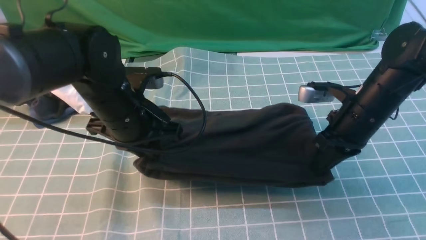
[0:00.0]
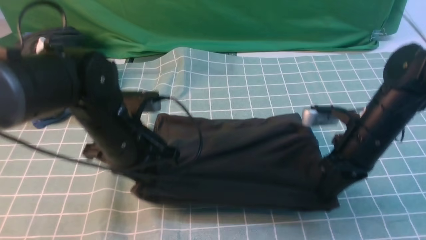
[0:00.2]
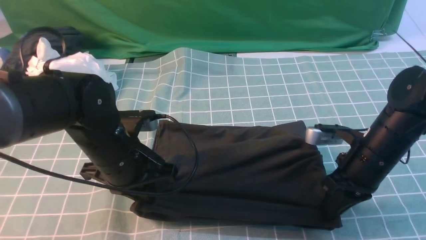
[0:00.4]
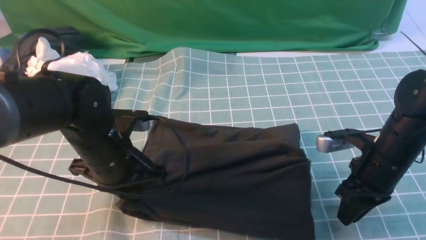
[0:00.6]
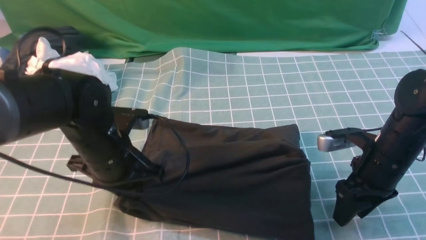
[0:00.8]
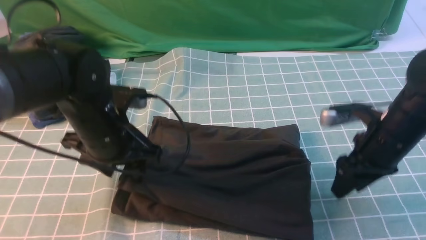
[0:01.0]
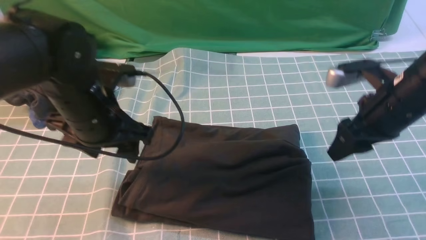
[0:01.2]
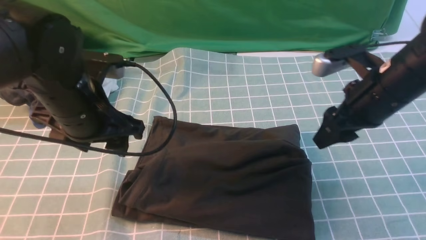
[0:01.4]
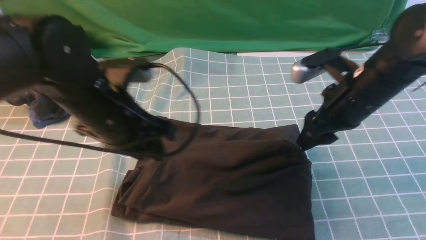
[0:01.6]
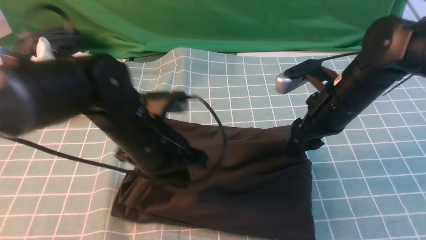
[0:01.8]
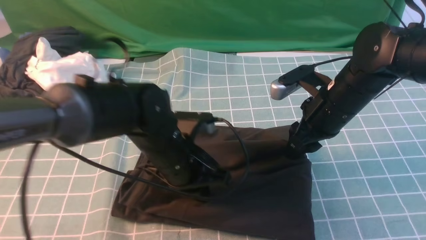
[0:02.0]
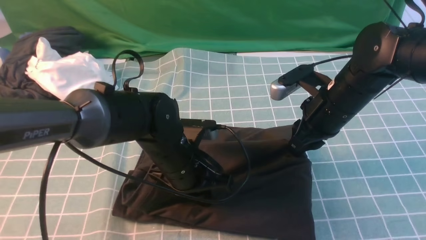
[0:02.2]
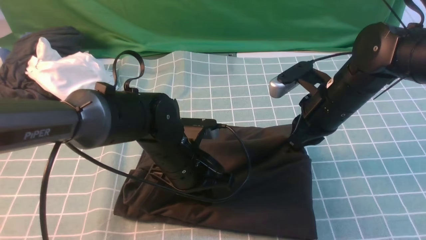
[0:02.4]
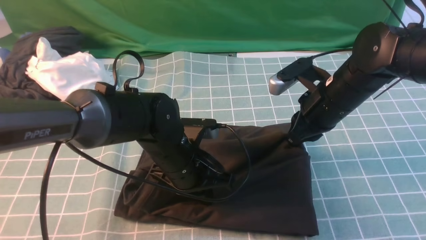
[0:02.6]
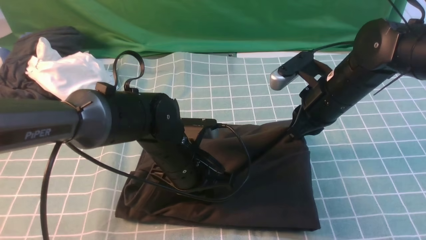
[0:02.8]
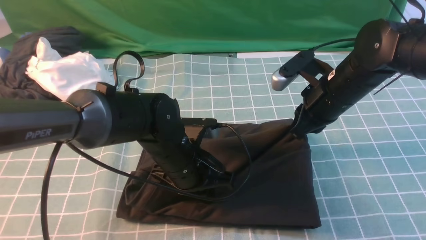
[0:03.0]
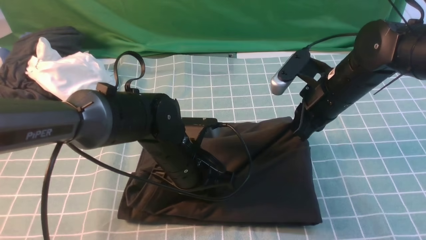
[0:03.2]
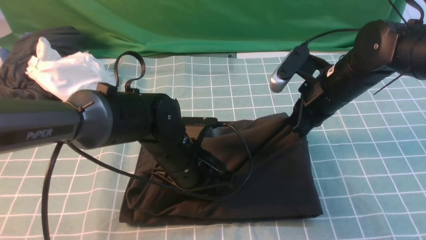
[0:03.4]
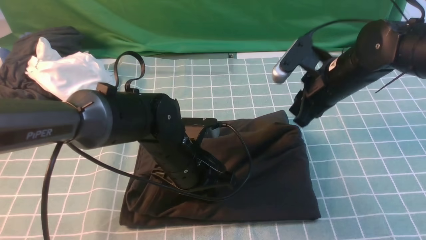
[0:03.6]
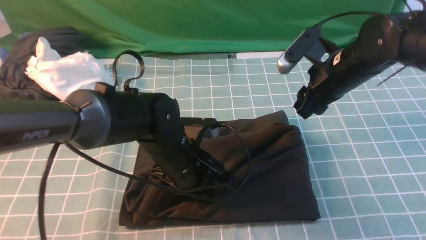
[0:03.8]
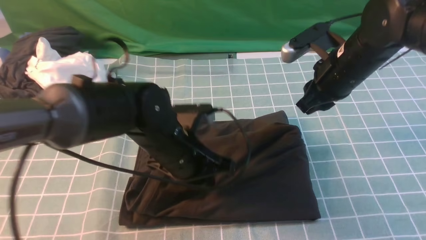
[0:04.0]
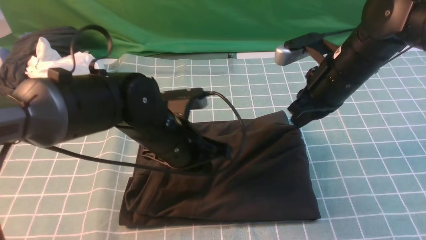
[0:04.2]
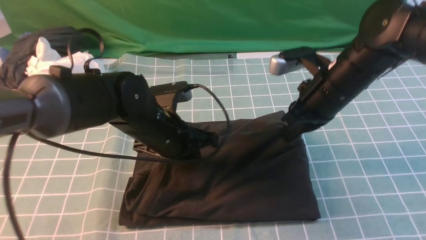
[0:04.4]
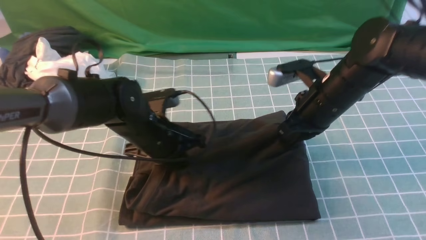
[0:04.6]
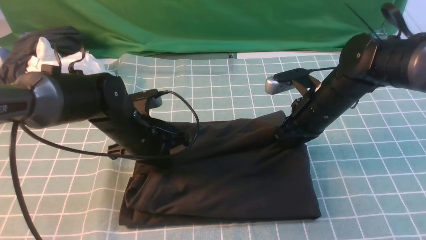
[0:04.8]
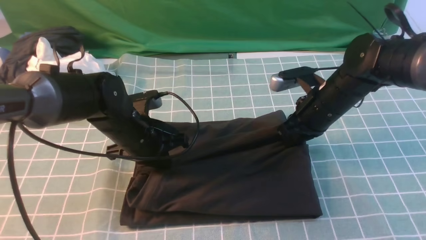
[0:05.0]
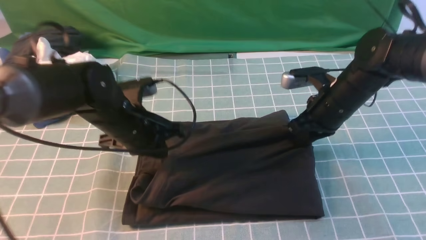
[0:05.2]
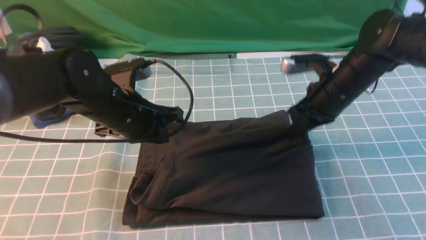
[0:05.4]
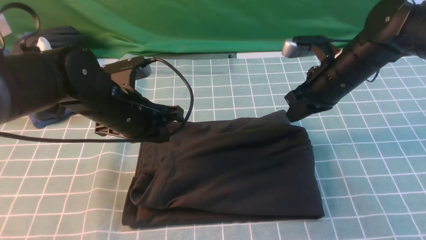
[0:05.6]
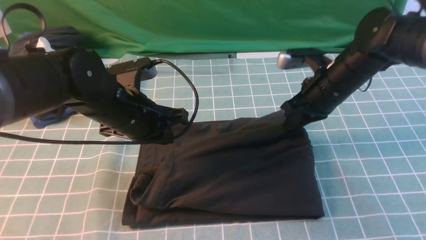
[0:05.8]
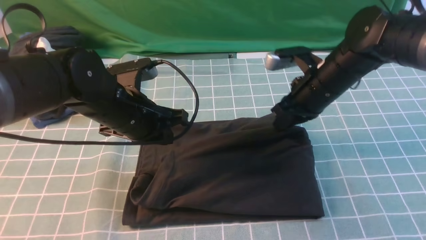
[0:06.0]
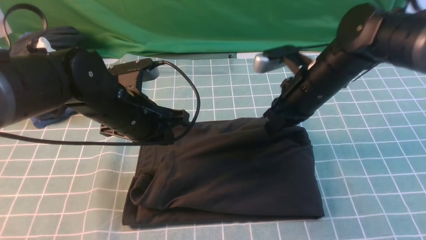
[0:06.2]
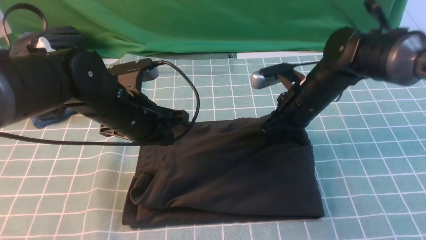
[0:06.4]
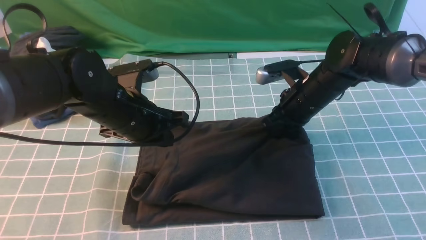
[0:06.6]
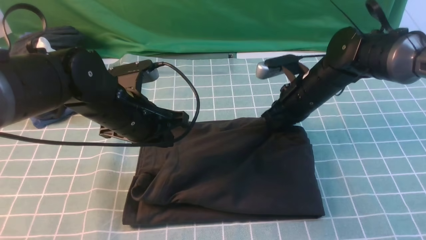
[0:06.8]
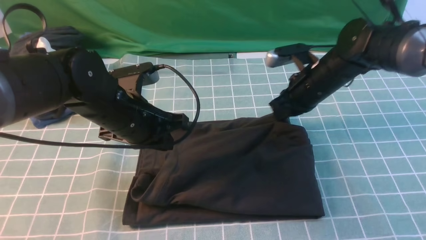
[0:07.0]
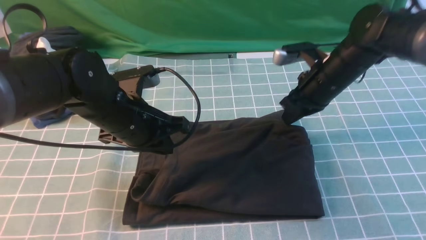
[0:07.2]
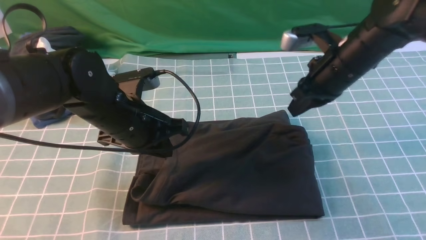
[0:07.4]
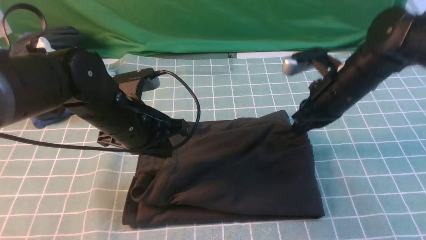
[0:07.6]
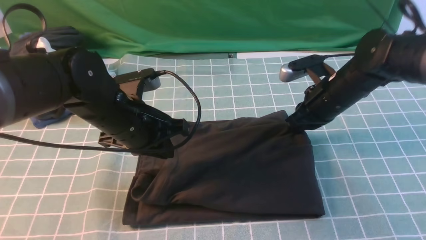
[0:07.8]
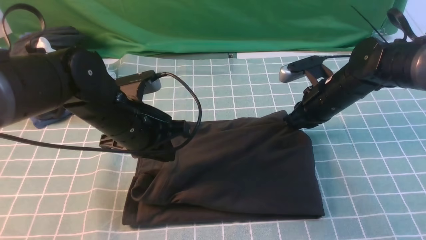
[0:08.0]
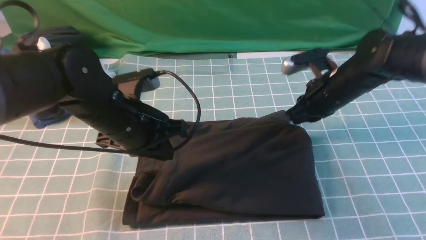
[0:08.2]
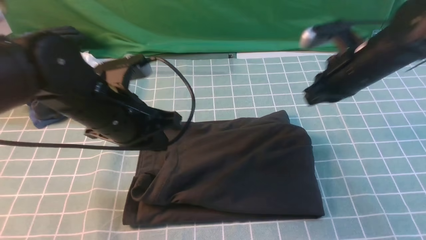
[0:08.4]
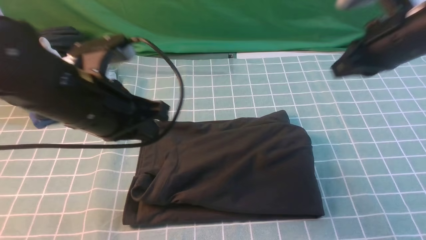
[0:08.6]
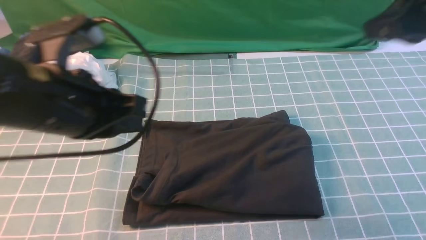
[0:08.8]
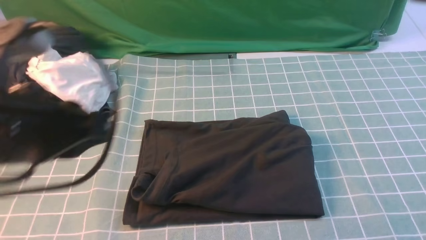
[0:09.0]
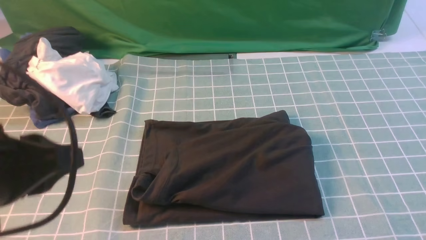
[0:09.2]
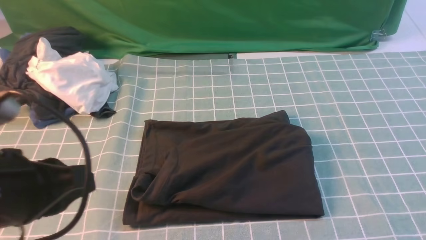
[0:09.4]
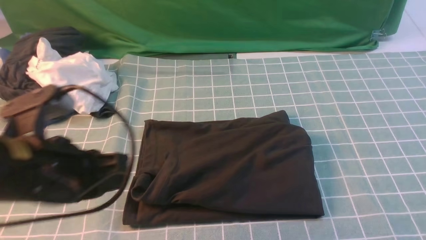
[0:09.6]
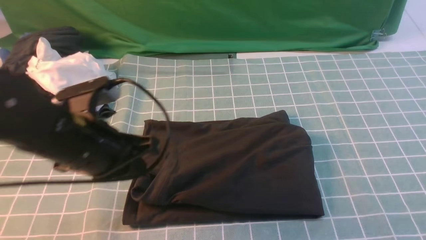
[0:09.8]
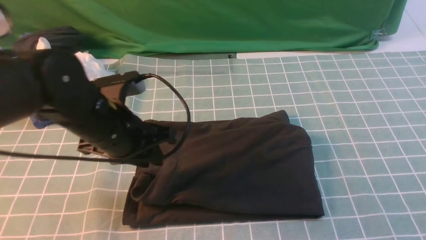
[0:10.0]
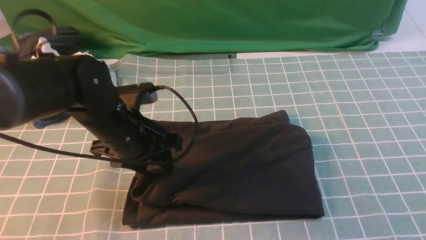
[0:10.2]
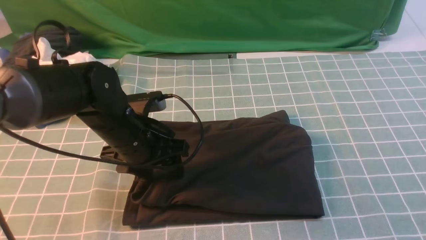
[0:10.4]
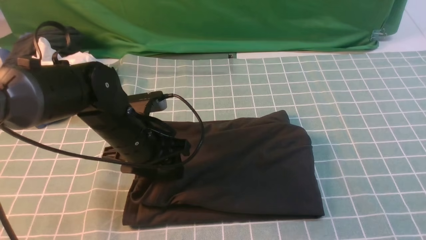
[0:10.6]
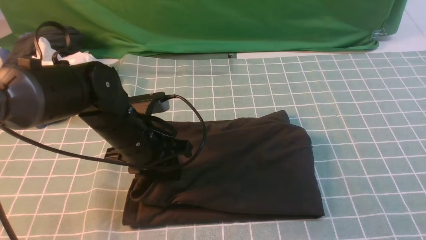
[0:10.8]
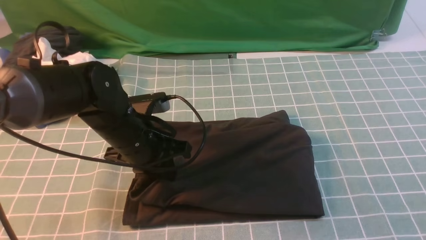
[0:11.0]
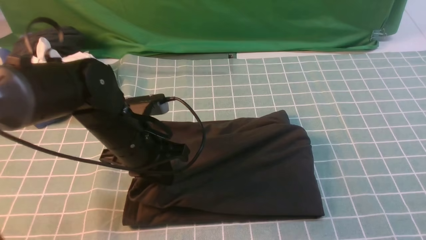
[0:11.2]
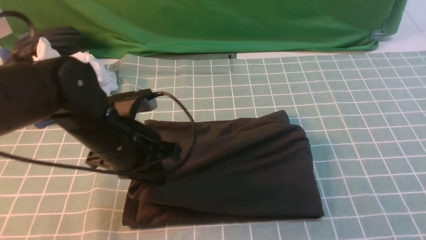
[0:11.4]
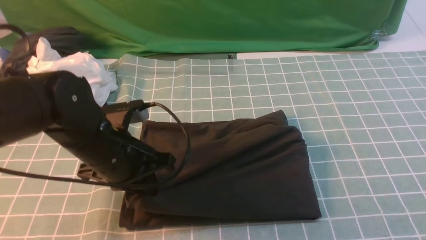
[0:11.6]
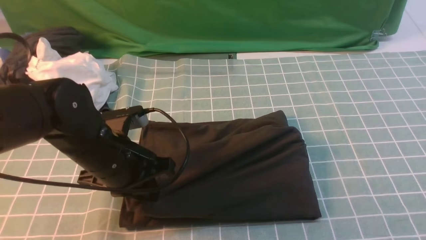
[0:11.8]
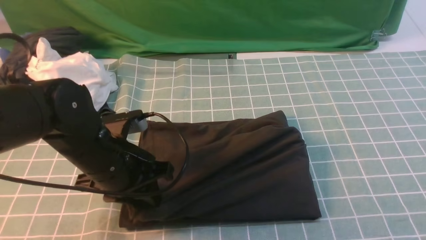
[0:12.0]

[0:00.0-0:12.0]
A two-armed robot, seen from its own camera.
0:00.0 to 0:01.6: The right gripper goes about 5 cm upward, and opens; the left gripper opens, then closes again.
0:01.6 to 0:03.0: The left gripper heads downward and to the right, covering some 10 cm, and closes its fingers. The right gripper closes its fingers.
0:03.0 to 0:04.4: The left gripper moves approximately 5 cm, while the right gripper opens and closes again.
0:04.4 to 0:06.0: The left gripper shifts by roughly 5 cm.
0:06.0 to 0:07.6: There are only small adjustments of the grippers.
0:07.6 to 0:09.0: The left gripper shifts some 20 cm backward and upward. Meanwhile the right gripper travels upward and backward by about 30 cm.
0:09.0 to 0:10.4: The right gripper travels backward by about 10 cm. Meanwhile the left gripper is displaced downward and forward by approximately 20 cm, and opens up.
0:10.4 to 0:12.0: The left gripper travels backward by about 5 cm, and closes up.

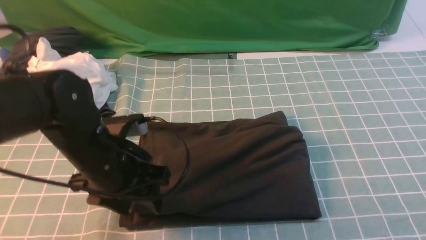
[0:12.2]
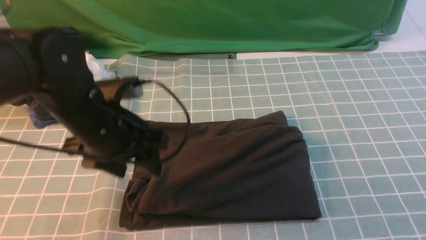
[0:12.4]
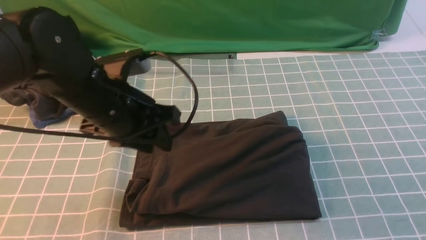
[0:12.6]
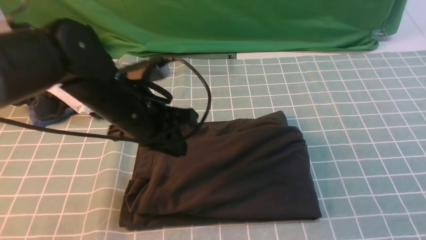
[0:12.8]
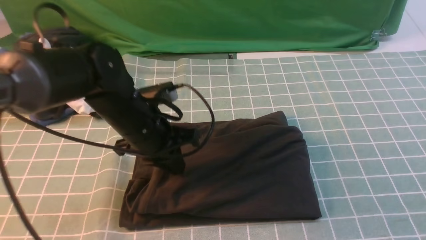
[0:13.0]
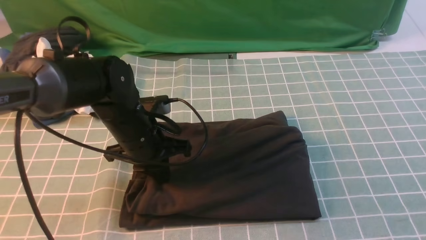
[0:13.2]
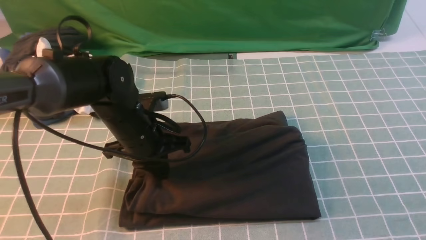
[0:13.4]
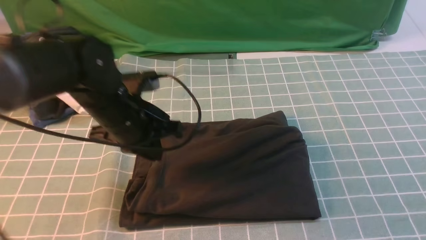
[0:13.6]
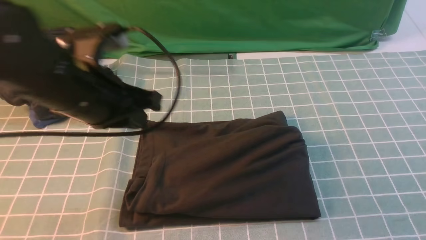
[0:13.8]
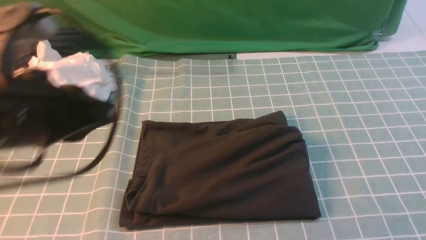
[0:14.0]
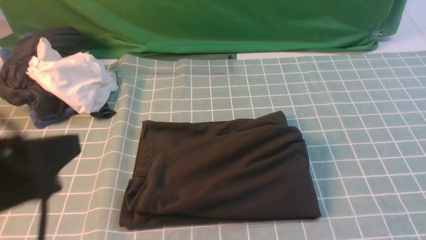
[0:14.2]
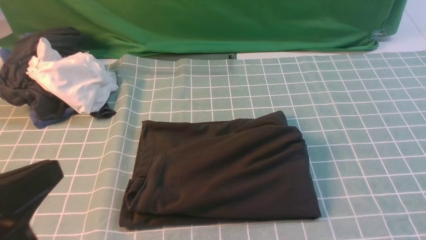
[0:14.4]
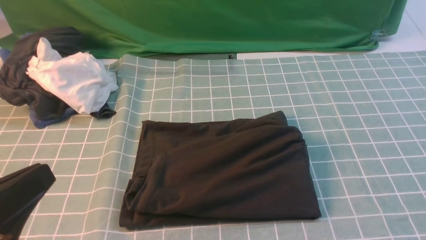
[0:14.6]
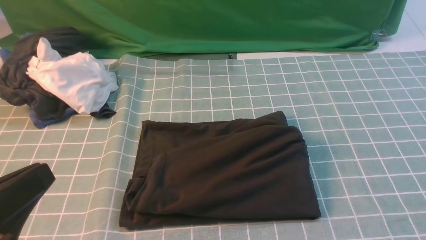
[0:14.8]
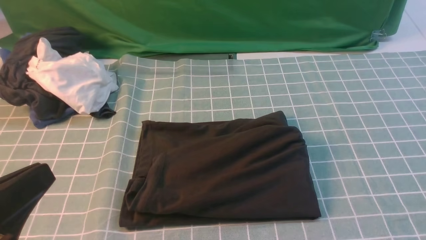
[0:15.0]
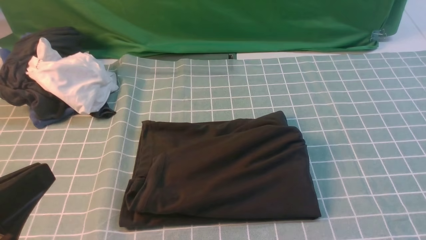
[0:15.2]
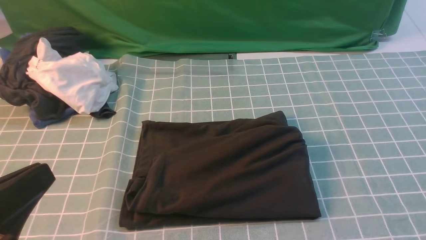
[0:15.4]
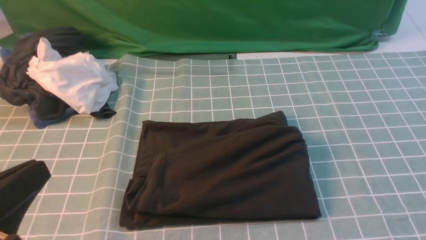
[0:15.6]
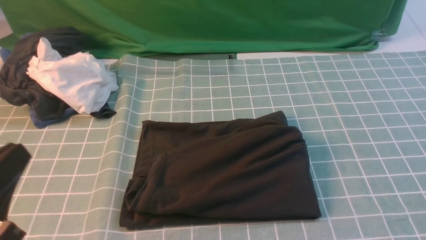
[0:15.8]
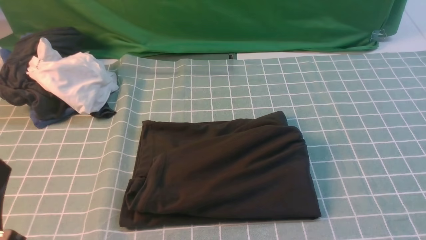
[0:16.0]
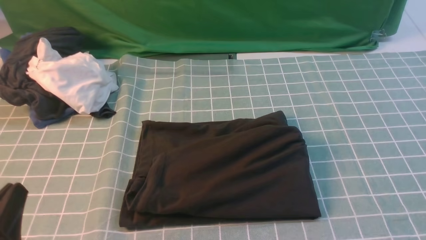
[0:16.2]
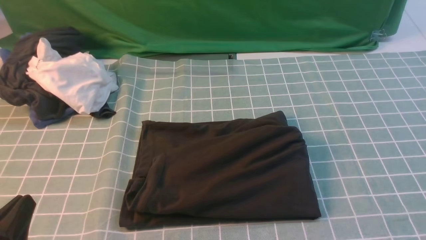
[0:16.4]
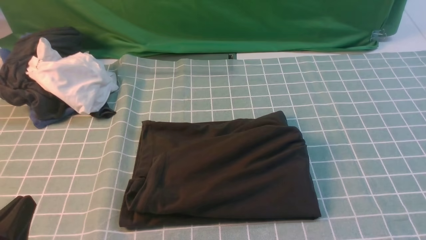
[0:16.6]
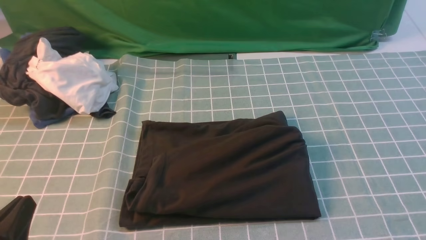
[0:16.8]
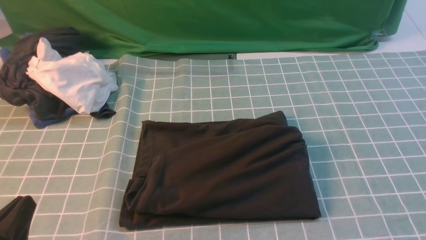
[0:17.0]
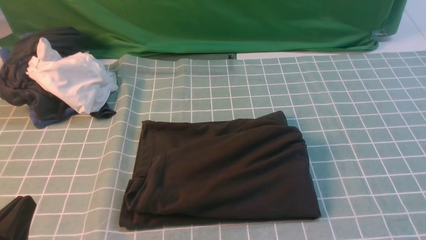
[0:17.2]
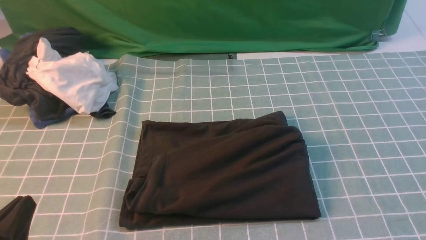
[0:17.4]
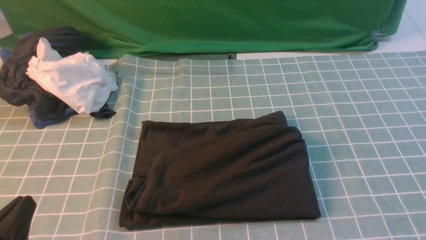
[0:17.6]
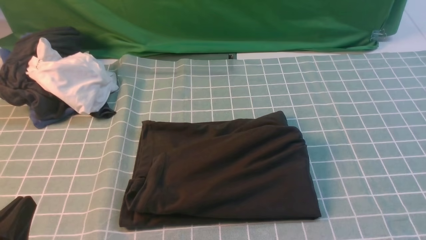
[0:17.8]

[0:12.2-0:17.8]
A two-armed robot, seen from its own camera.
0:12.2 to 0:13.6: The left gripper reaches roughly 5 cm downward, then returns, and closes.
0:13.6 to 0:15.0: The right gripper is displaced backward and downward by roughly 15 cm, while the left gripper shifts roughly 25 cm backward.
0:15.0 to 0:16.4: The left gripper travels downward by some 10 cm.
